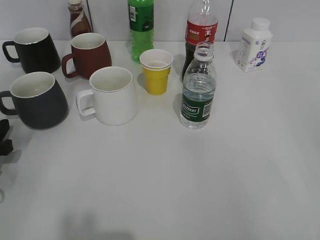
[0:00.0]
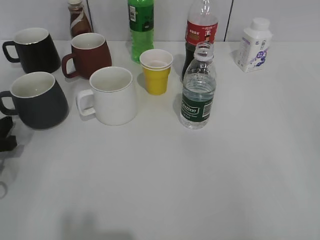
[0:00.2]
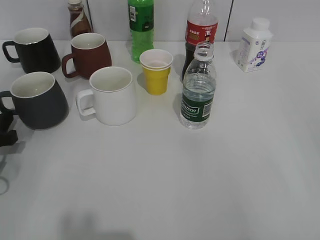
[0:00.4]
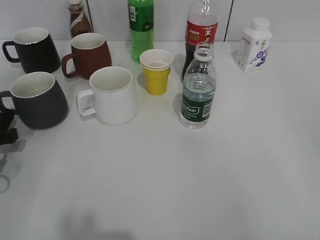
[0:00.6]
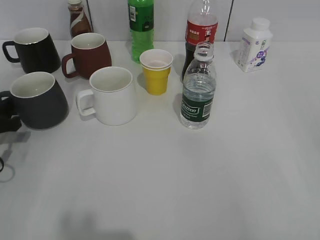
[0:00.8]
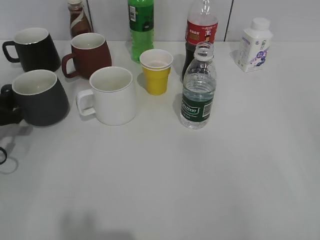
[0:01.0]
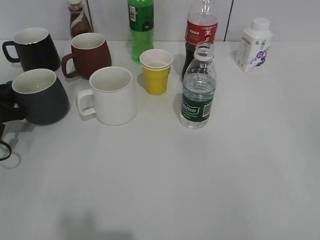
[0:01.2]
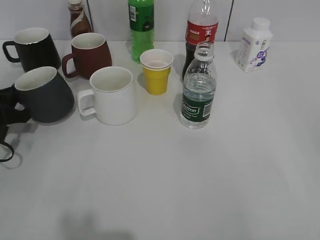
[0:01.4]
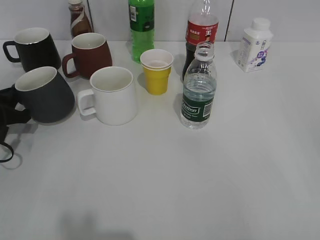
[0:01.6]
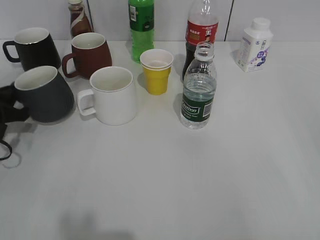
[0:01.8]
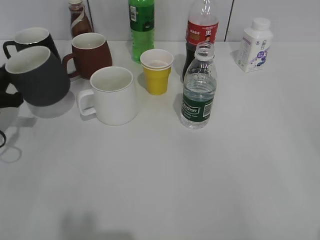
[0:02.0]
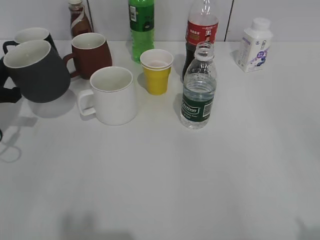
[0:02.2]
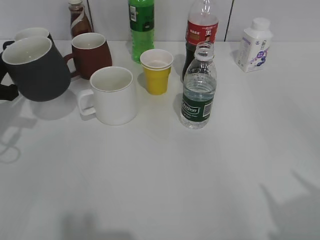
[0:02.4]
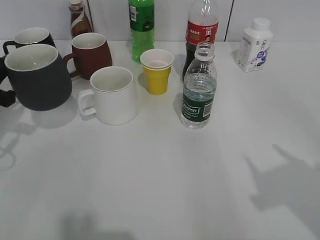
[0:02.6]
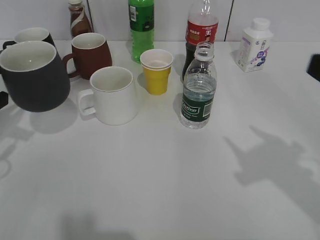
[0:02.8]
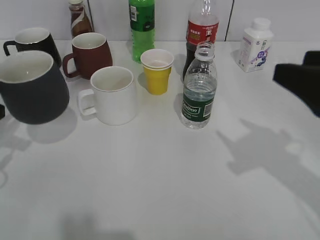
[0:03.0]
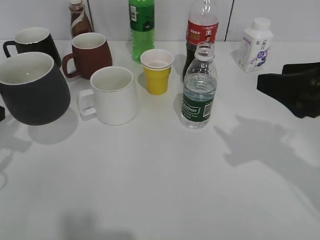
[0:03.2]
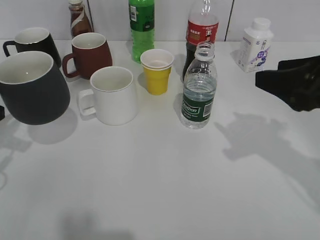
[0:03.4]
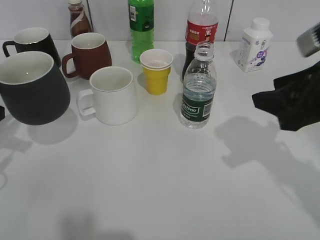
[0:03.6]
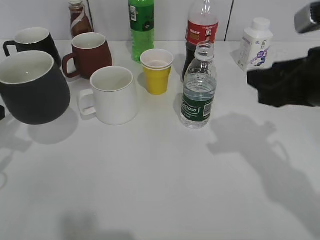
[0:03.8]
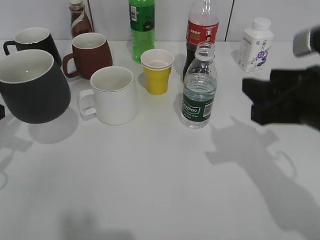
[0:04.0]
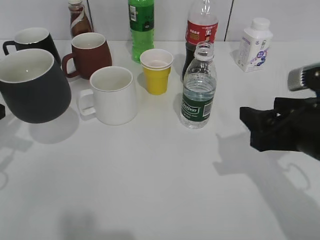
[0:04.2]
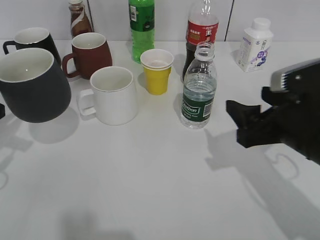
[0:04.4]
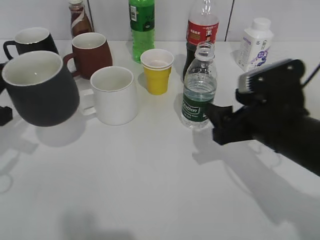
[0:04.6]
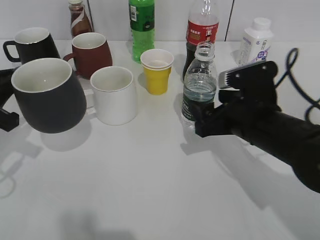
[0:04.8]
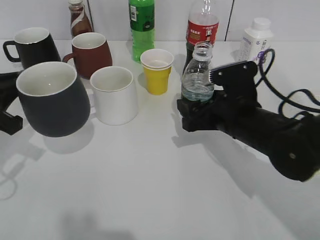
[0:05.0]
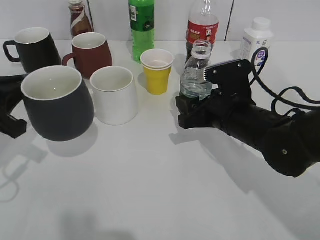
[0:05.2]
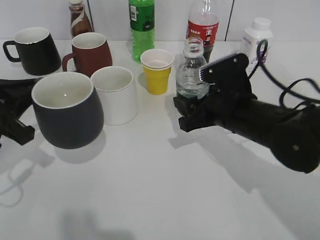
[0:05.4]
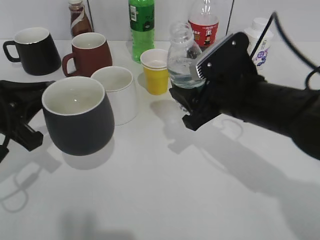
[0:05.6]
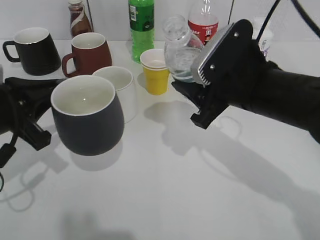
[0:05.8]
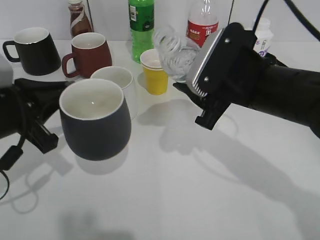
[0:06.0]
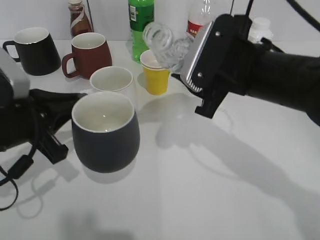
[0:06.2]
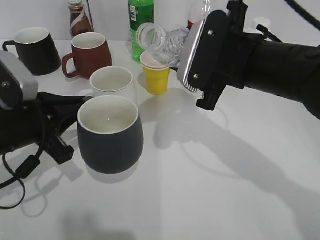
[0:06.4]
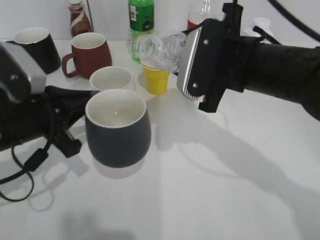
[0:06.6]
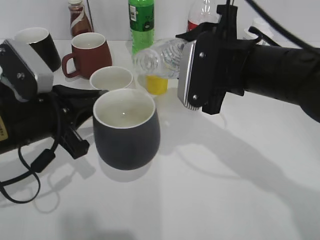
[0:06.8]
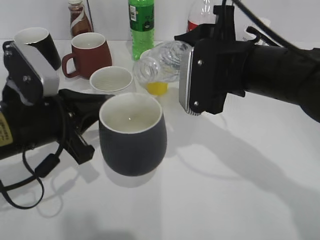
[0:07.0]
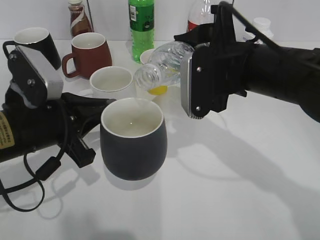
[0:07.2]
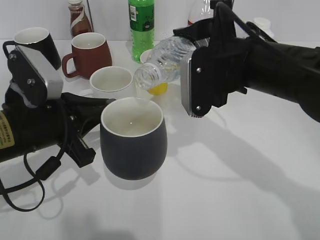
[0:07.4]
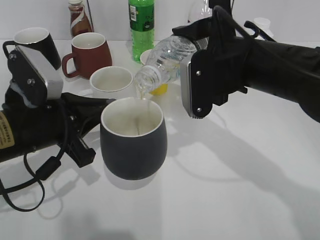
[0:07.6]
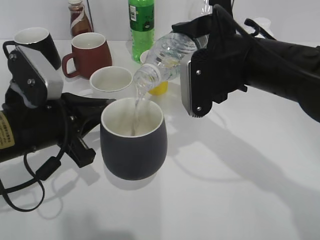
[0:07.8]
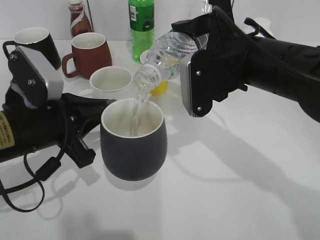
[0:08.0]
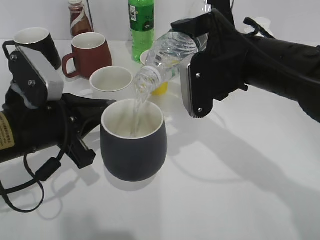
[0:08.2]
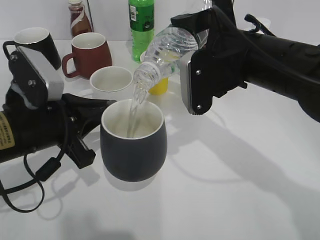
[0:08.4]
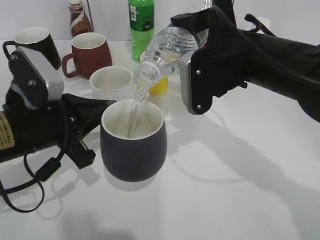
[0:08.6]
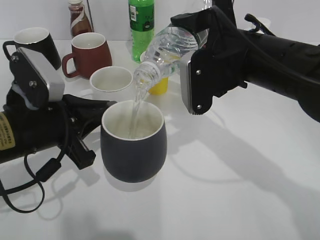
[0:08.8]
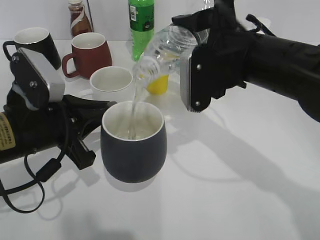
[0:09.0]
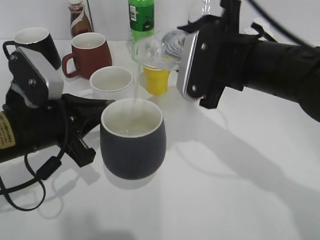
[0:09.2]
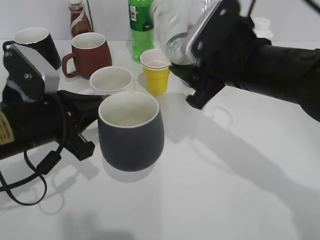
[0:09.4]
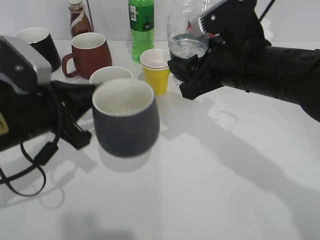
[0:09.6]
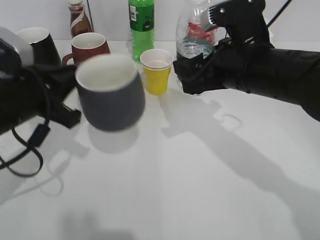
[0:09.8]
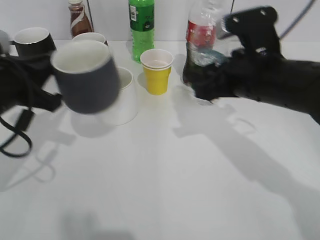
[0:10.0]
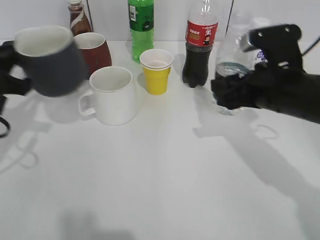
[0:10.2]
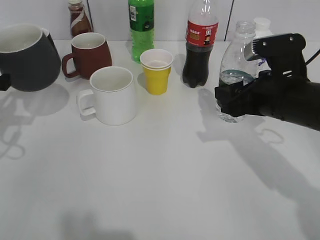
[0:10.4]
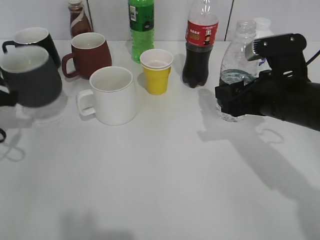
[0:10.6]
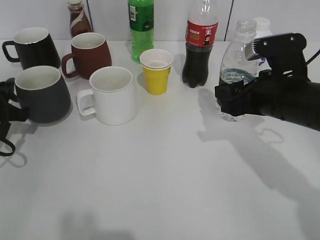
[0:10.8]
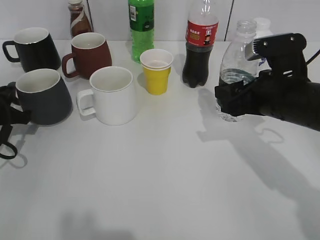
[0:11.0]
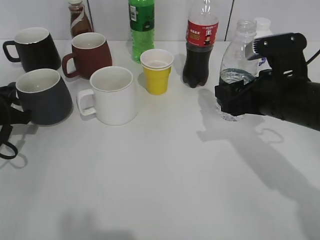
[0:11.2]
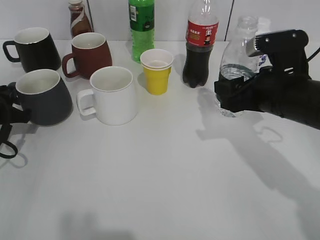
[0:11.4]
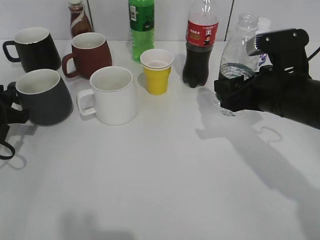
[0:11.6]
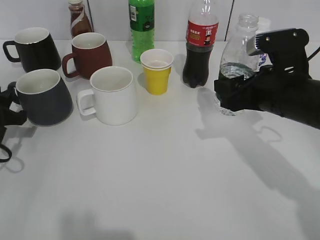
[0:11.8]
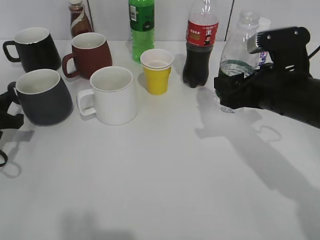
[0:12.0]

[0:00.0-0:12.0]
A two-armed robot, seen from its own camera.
Step, 0:01.6 to 0:02.4: Lift the black cup with left gripper.
Step, 0:02.8 to 0:05.0: Grasp the bottle with water with right gripper.
Step, 0:05.2 to 0:09.4: Pour the water from bottle to cup with right gripper.
Step, 0:09.8 to 0:11.8: Place the black cup on the table with left gripper.
0:00.0 to 0:01.6: The left gripper travels forward by about 10 cm, and closes its fingers.
0:01.6 to 0:03.0: The right gripper shifts roughly 15 cm forward. Meanwhile the left gripper shifts some 10 cm upward and backward.
0:03.0 to 0:04.4: The right gripper moves downward and to the left, some 10 cm, and closes, then reopens.
0:04.4 to 0:06.0: The right gripper goes about 10 cm to the left and forward, reaches approximately 5 cm downward, then returns, and closes, while the left gripper shifts some 5 cm to the right.
0:06.0 to 0:07.6: The left gripper goes some 5 cm to the right.
0:07.6 to 0:09.0: The grippers move only a little.
0:09.0 to 0:10.4: The right gripper goes about 10 cm to the right and downward. Meanwhile the left gripper is displaced to the left by approximately 10 cm.
0:10.4 to 0:12.0: The left gripper heads downward, covering about 10 cm, and opens its fingers.

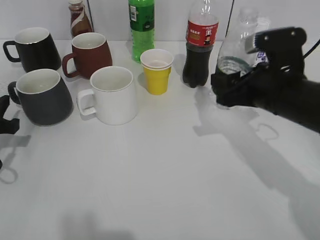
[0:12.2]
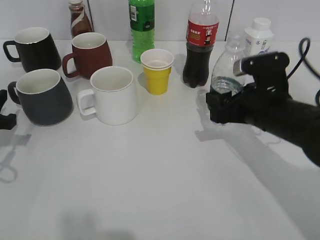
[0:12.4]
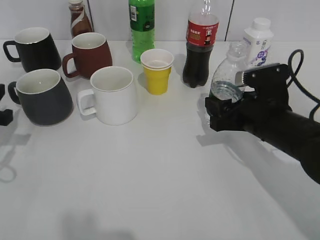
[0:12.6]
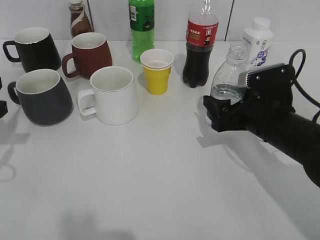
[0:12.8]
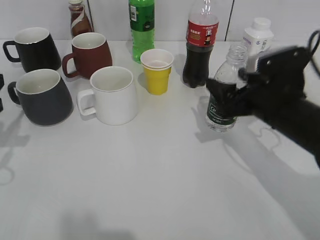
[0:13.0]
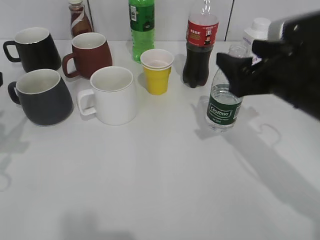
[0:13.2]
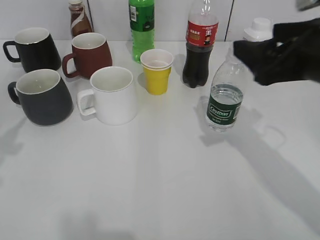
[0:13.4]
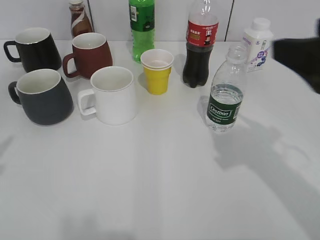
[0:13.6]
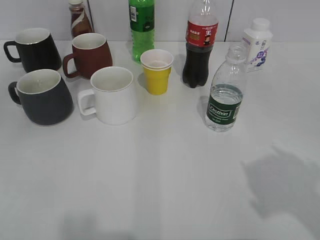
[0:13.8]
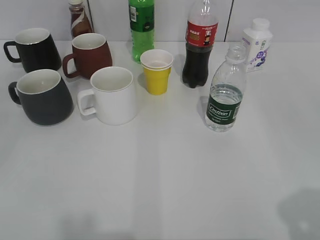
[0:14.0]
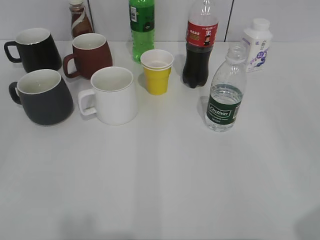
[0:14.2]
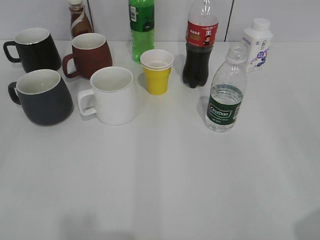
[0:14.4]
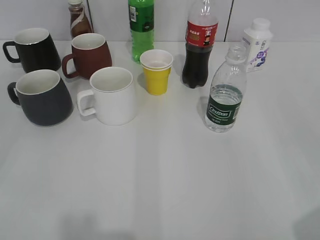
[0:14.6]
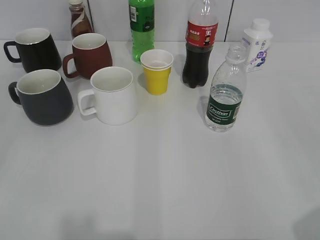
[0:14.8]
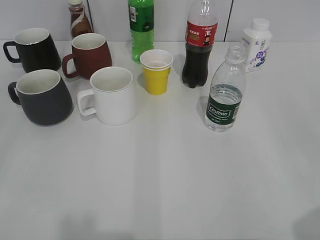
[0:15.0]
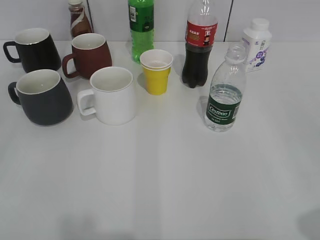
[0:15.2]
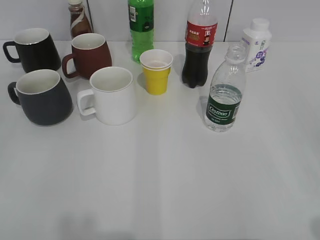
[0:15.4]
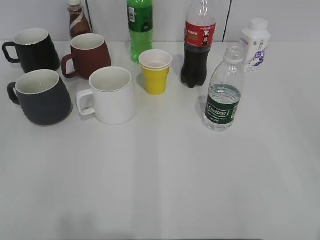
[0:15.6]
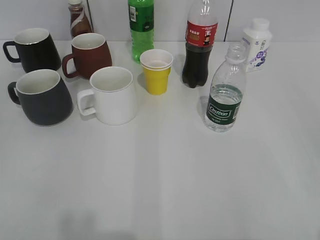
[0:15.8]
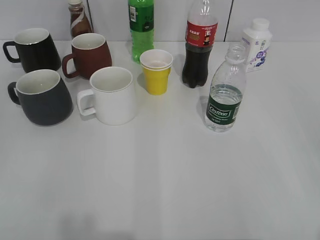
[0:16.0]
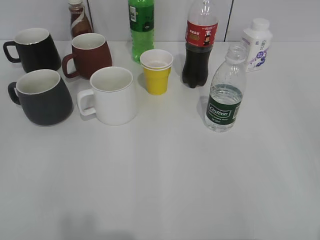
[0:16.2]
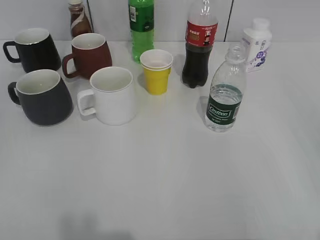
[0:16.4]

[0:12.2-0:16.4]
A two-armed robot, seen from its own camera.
Step, 0:12.2 to 0:13.0: Place the water bottle on the table with right gripper.
0:12.2 to 0:13.6: The right gripper shifts roughly 15 cm upward and backward, and opens up. Meanwhile the left gripper is displaced upward and backward by some 20 cm, and opens up.
0:13.6 to 0:15.0: The left gripper heads backward, covering about 15 cm. Meanwhile the right gripper is displaced backward and to the right by roughly 20 cm.

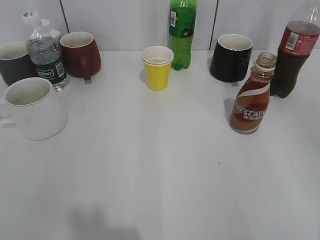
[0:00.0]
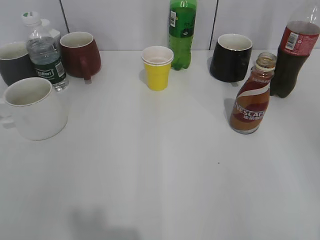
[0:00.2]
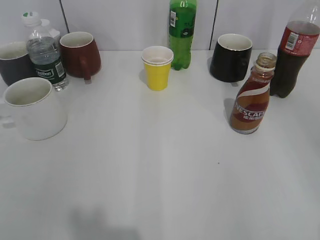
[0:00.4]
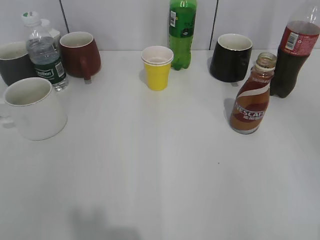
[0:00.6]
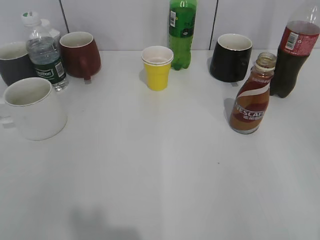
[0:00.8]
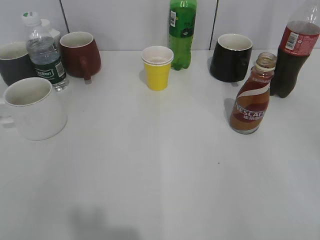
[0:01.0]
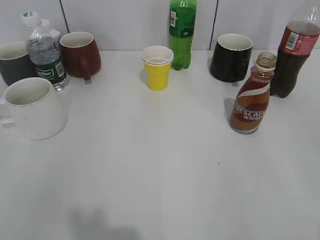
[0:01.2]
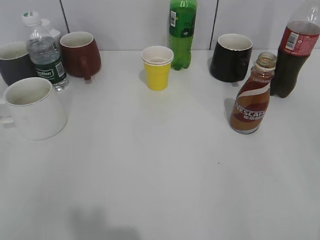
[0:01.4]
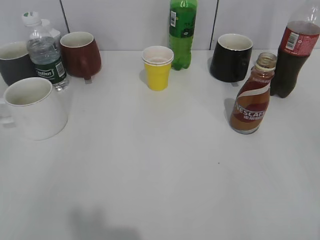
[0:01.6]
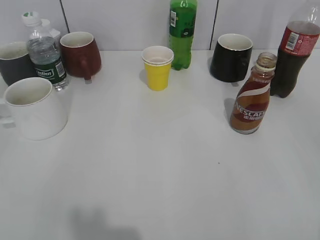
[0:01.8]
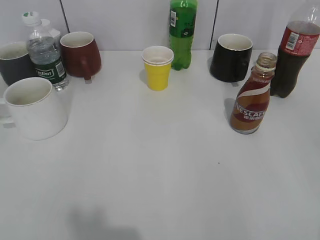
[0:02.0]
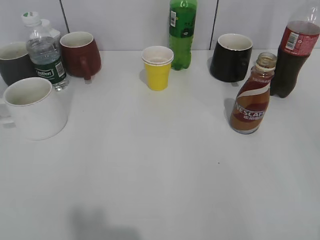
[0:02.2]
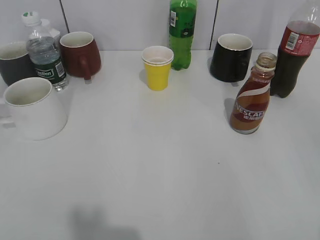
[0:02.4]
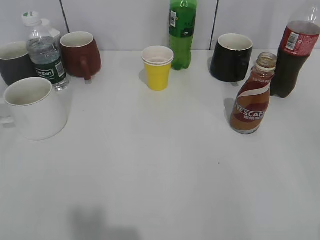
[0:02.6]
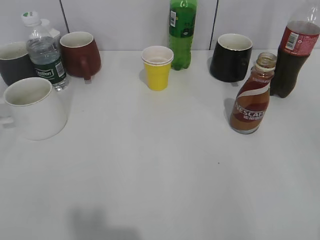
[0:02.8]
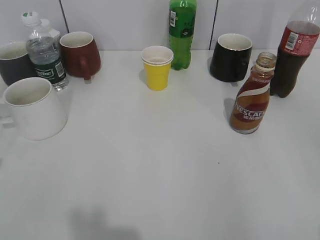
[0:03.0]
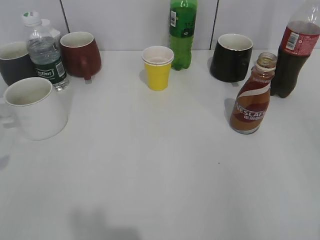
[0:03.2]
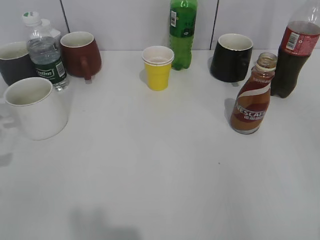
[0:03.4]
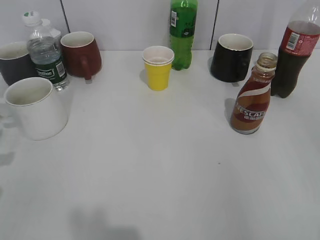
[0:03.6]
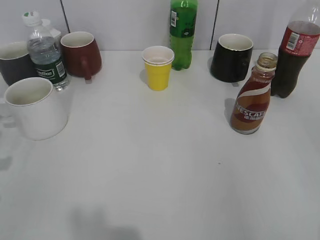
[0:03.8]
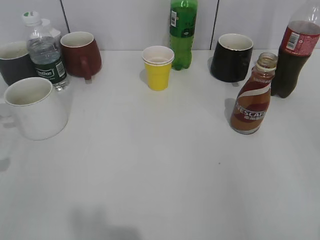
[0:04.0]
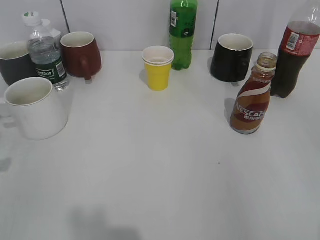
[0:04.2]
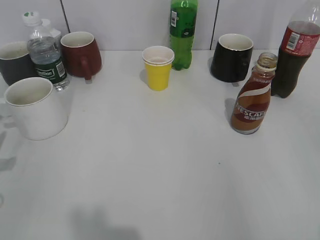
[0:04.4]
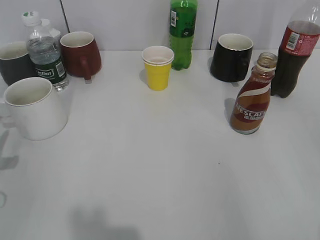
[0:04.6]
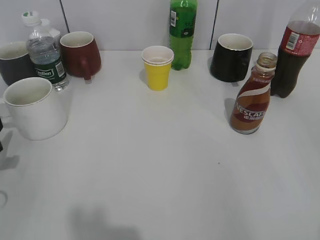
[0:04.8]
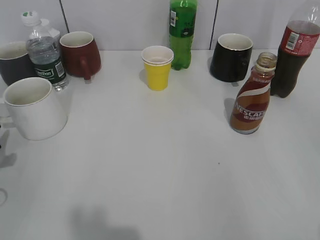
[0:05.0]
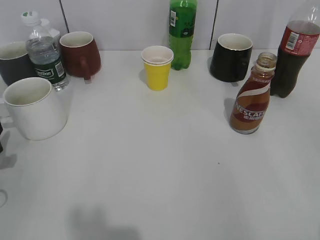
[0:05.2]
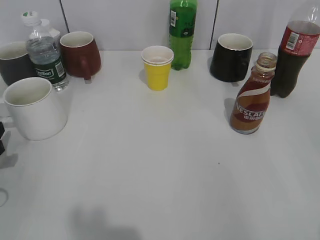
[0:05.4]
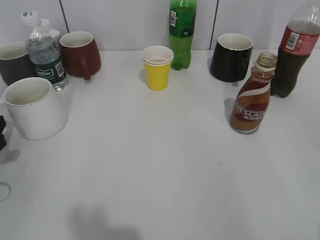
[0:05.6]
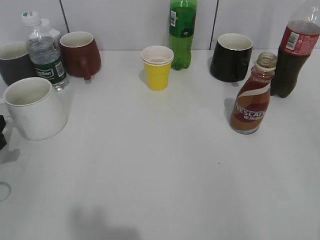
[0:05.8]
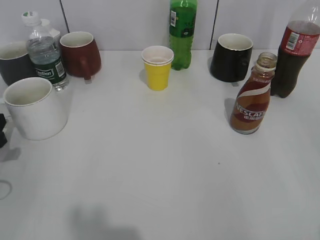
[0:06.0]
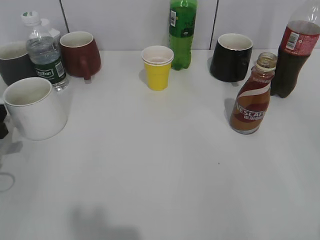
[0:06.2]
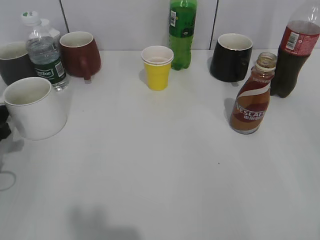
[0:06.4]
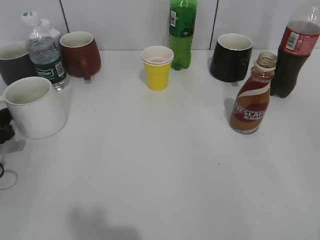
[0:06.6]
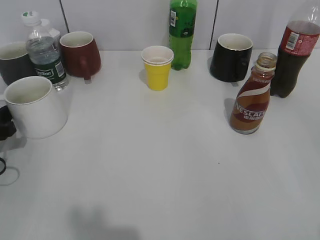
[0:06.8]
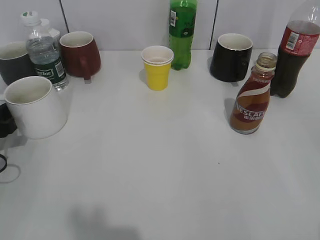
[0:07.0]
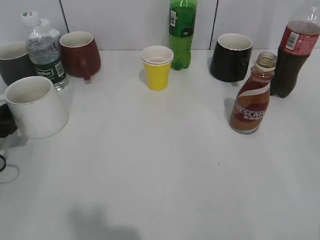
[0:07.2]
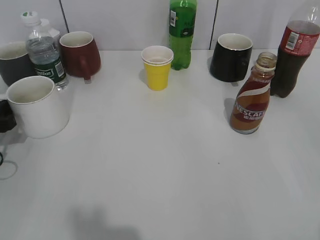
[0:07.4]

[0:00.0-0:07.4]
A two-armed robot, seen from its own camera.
0:03.0 to 0:04.4: The left gripper travels downward by about 5 cm.
0:04.4 to 0:06.0: The left gripper opens its fingers.
0:06.0 to 0:07.4: The grippers make only small movements.
